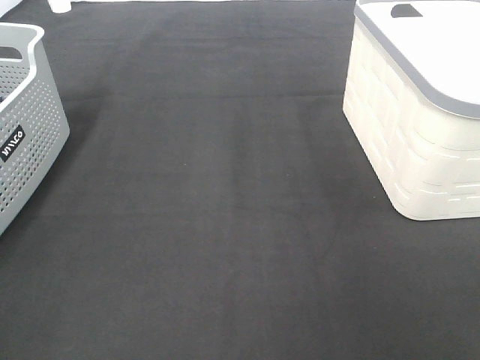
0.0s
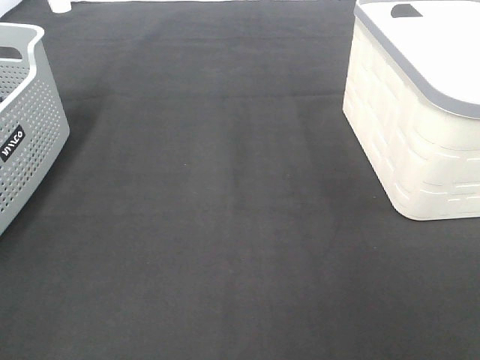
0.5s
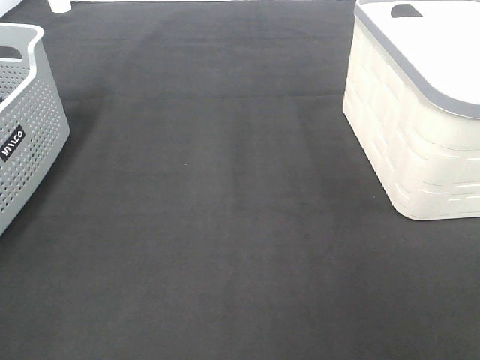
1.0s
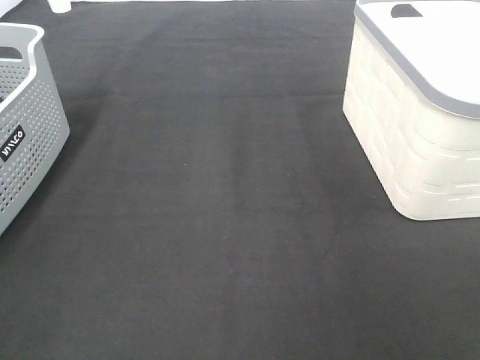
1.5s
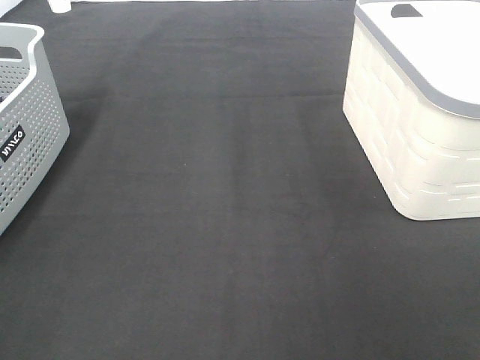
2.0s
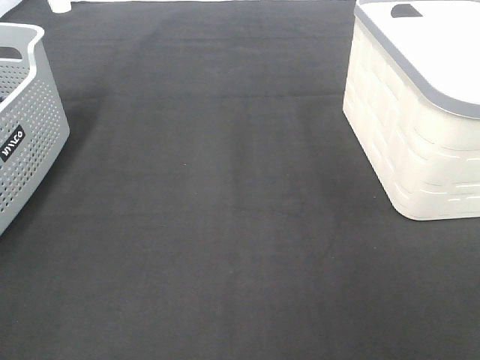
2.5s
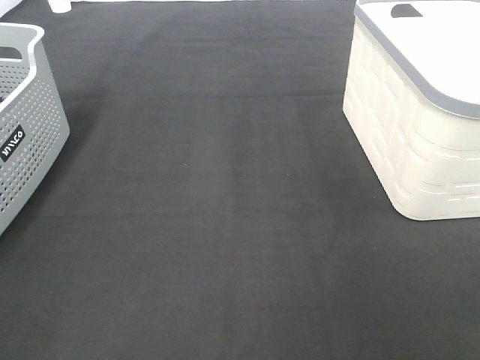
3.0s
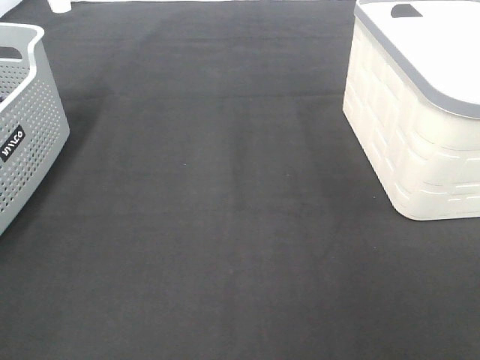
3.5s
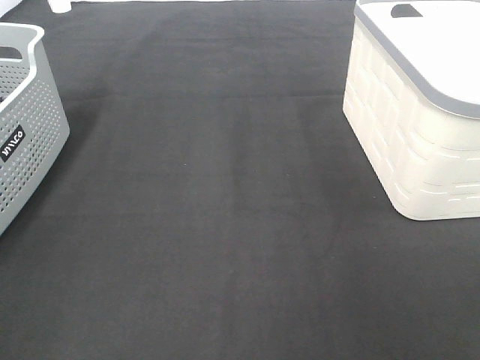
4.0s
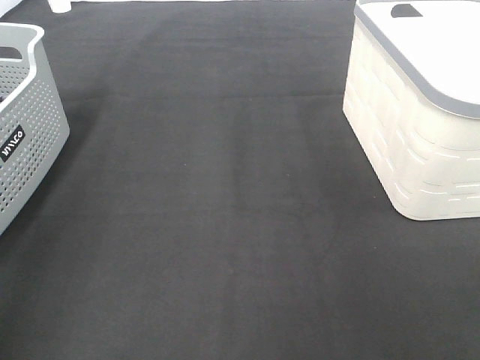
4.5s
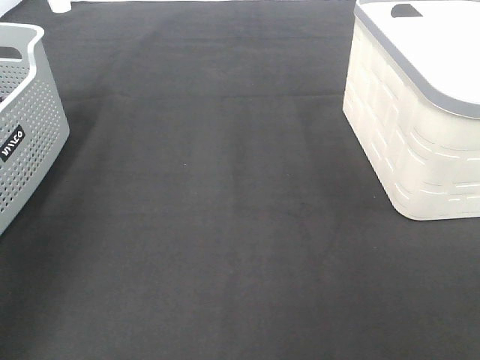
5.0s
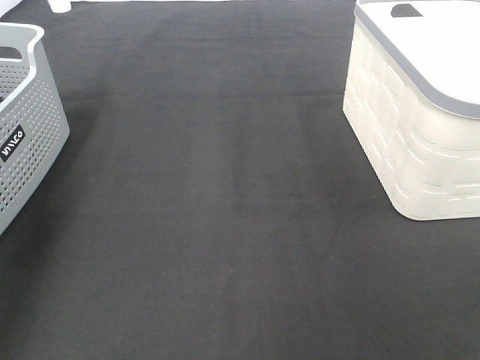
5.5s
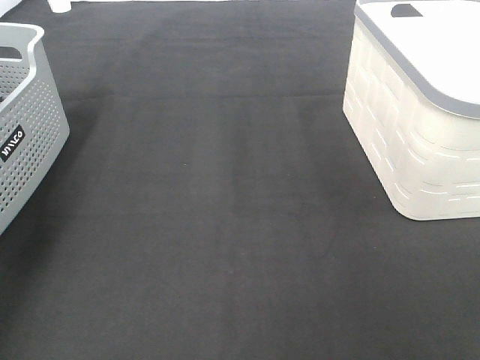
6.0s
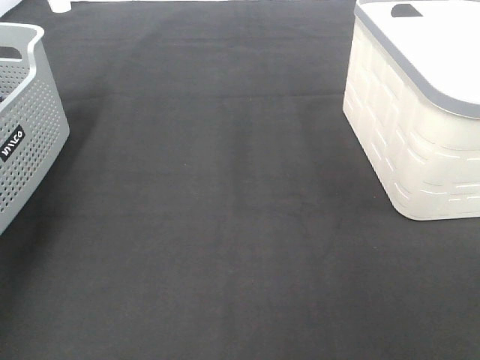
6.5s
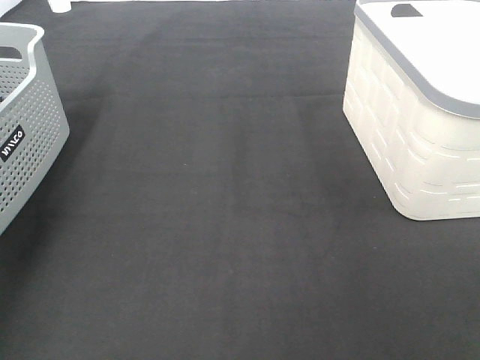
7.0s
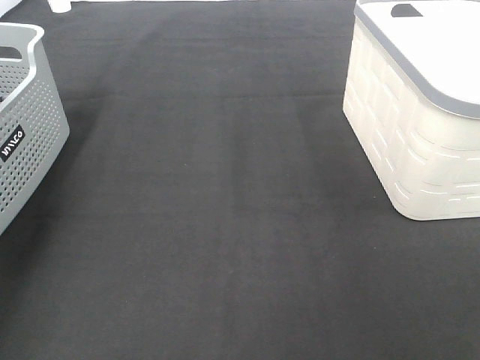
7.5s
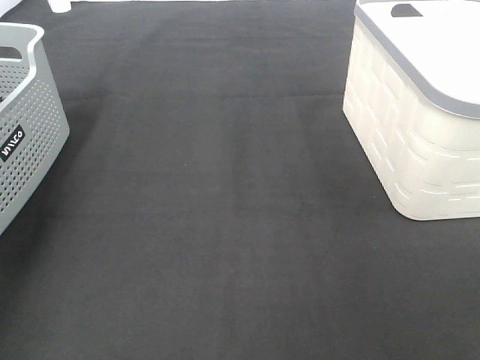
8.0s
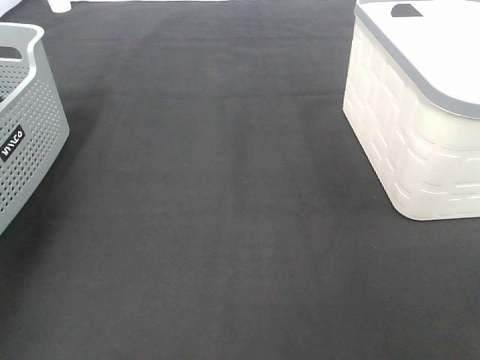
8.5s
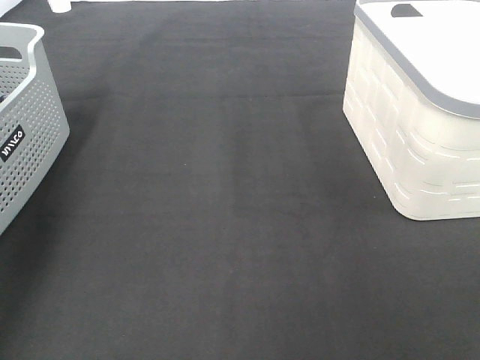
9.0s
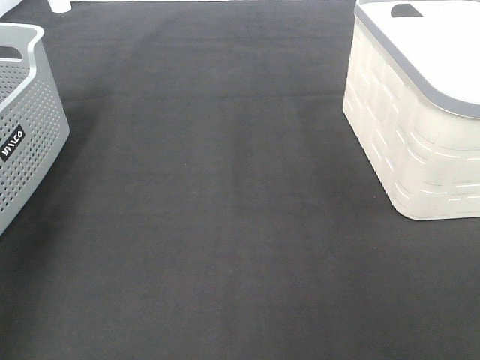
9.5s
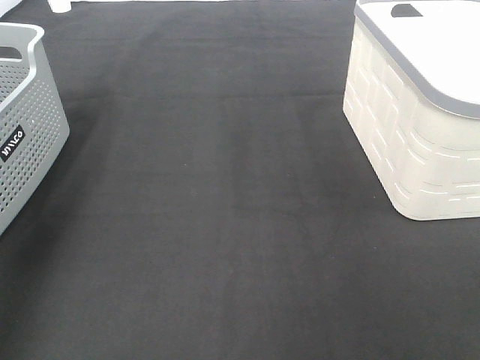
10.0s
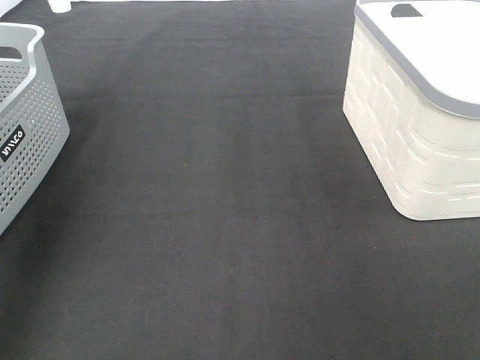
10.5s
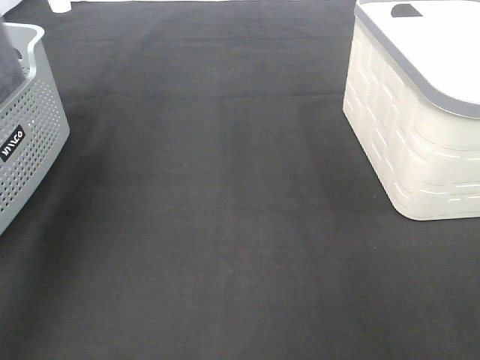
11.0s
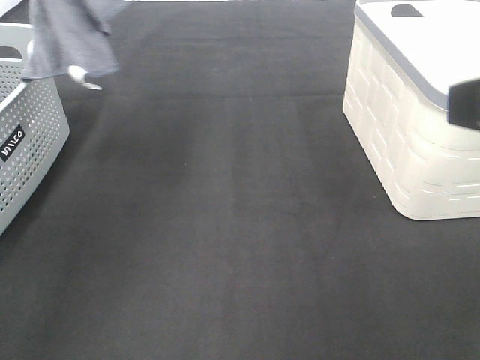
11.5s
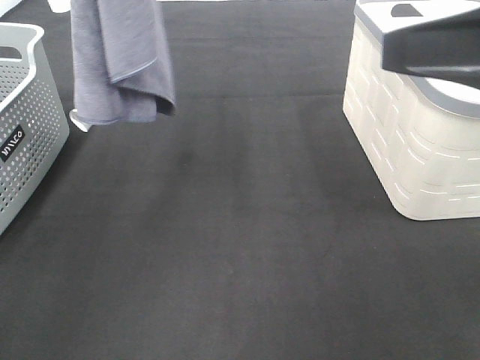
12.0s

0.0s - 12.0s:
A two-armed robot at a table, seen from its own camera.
Task of the whole recording: Remove the towel and place it.
0.0s - 2.0s: Both grippers stay put.
4.0s - 6.0s: The left gripper shifts approximately 35 cm forward.
10.0s - 12.0s: The left gripper goes approximately 20 cm to the right and upward. The right gripper heads forward, covering some 15 cm.

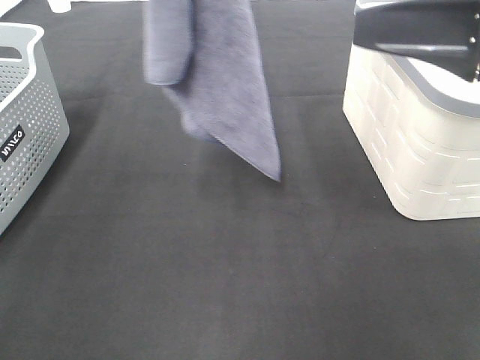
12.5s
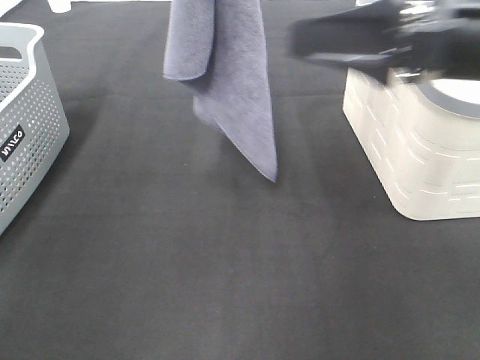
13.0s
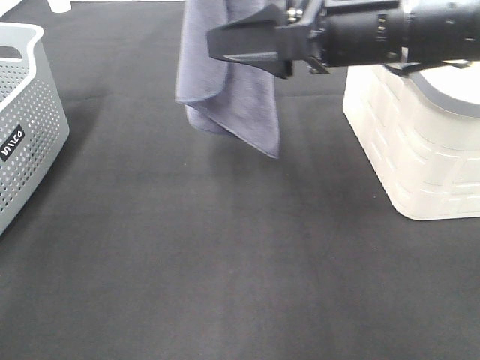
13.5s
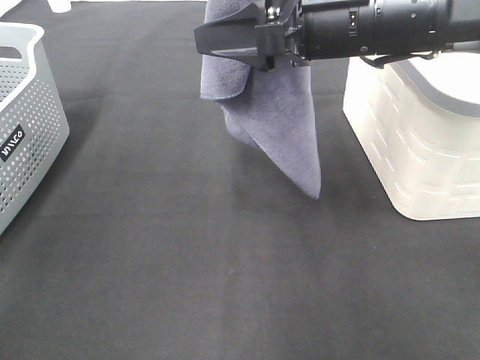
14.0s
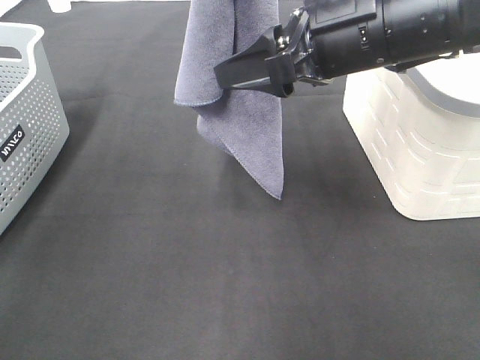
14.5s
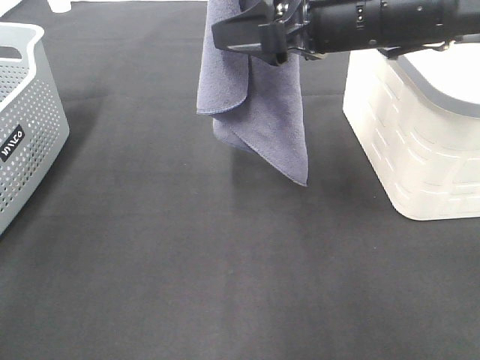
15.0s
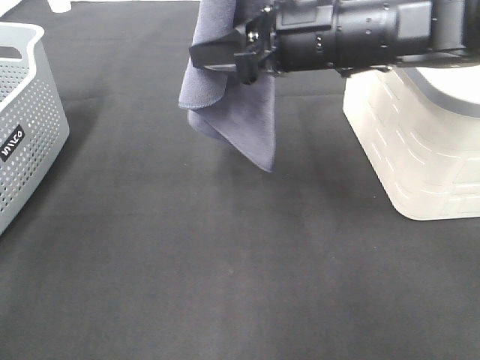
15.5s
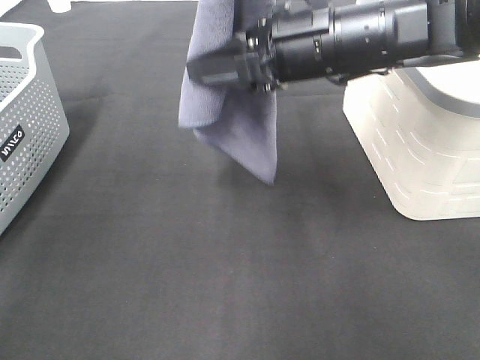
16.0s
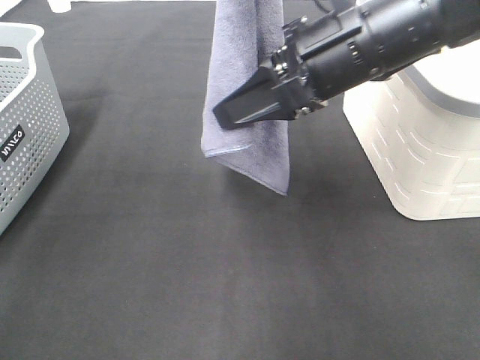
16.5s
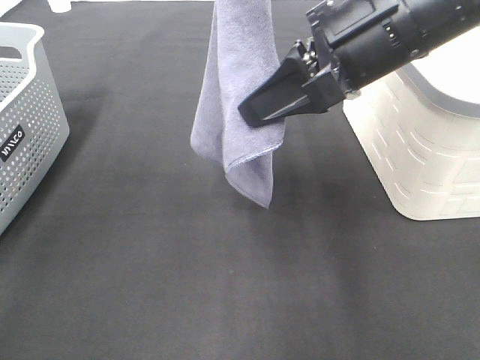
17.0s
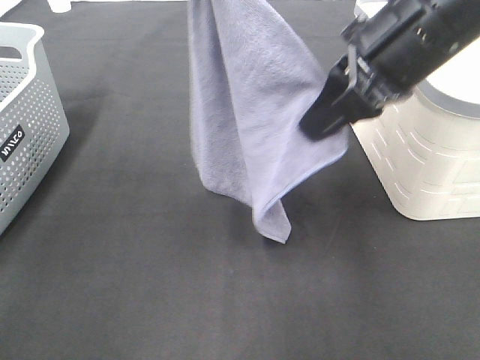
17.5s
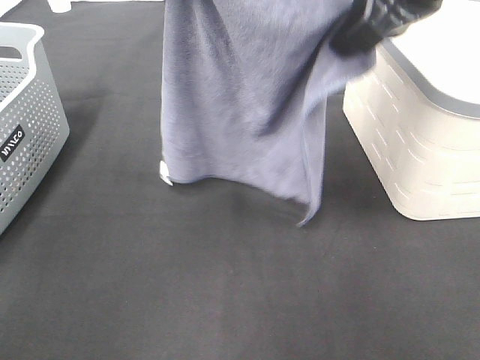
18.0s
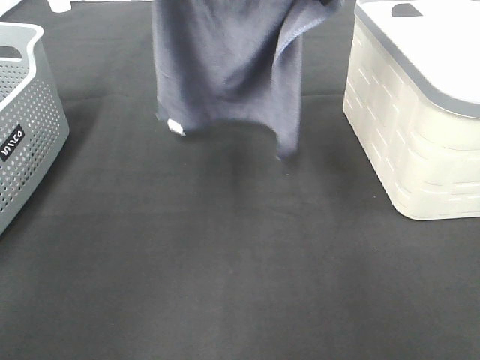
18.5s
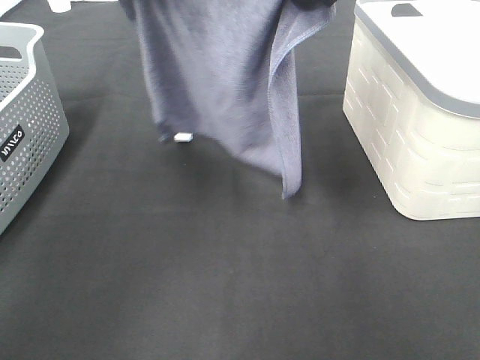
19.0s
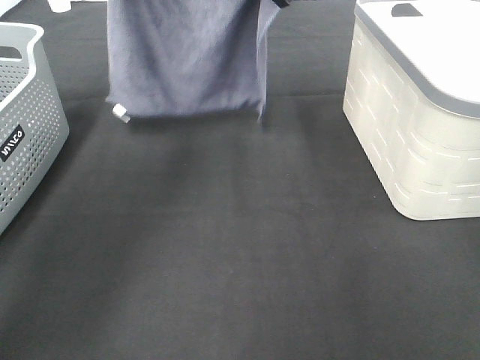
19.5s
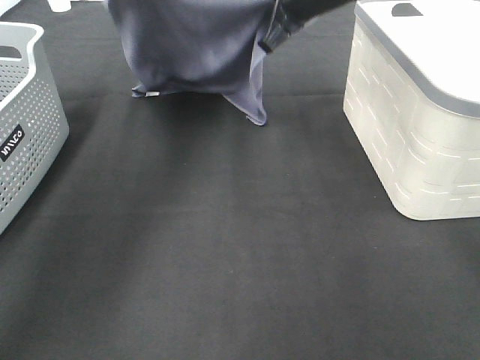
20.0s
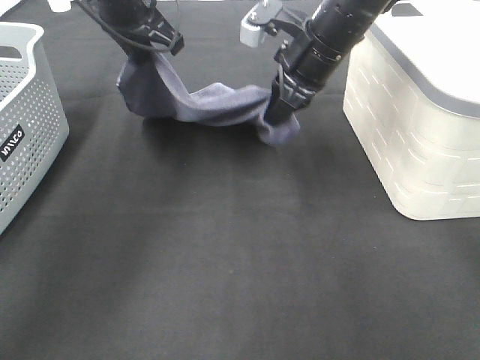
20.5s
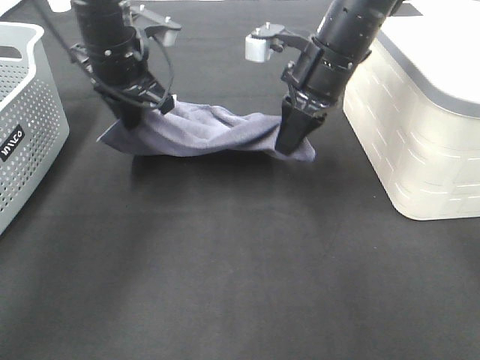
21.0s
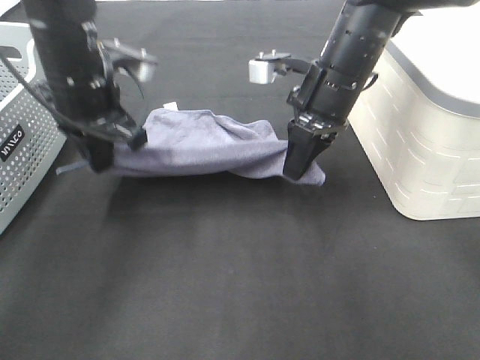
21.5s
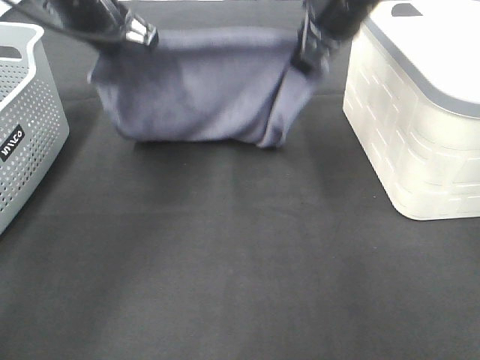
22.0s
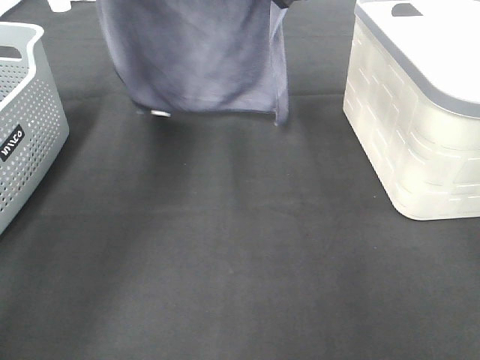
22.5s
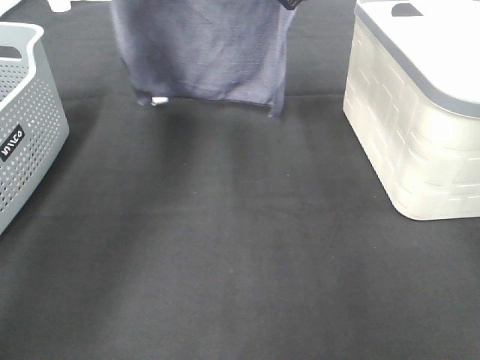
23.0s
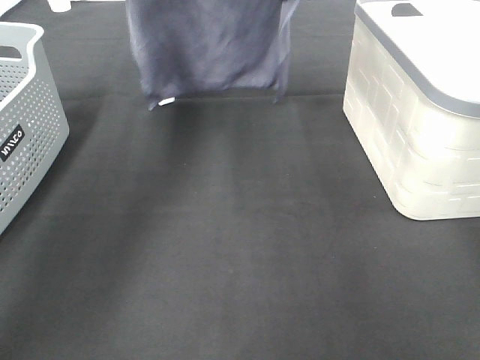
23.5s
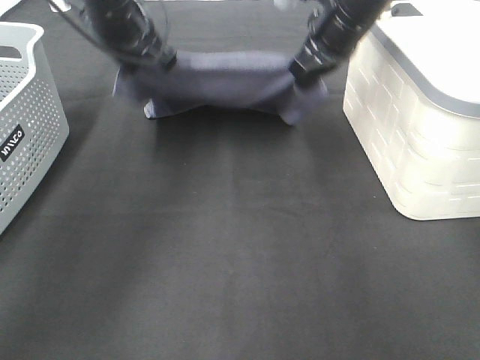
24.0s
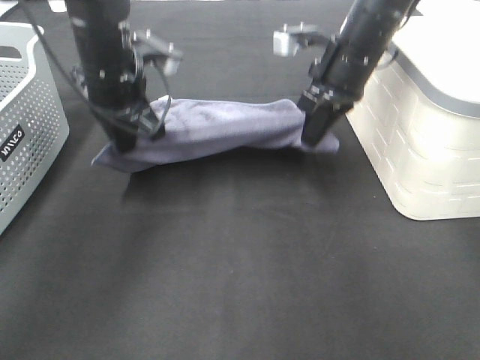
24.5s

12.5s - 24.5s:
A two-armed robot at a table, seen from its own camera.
Task of the whole recording: Remove the towel and place it.
Step, 12.5s - 15.0s: Right hand: grab a corner of the grey towel and straighten it.
Step, 15.5s - 20.5s: Right hand: spread the grey towel flat on the table.
Step, 15.5s - 21.0s: Left hand: spread the grey towel flat on the table.
12.5s - 14.5s: The right gripper shifts some 15 cm to the left and forward.
14.5s - 16.5s: The right gripper closes its fingers.
16.5s - 18.5s: The right gripper is displaced upward and forward by approximately 15 cm. The left gripper shifts roughly 10 cm forward and downward.
18.5s - 20.5s: Both grippers move downward, some 15 cm.
20.5s - 22.5s: The right gripper heads upward, covering some 10 cm; the left gripper is displaced upward by roughly 5 cm.
22.5s - 24.5s: Both grippers travel together downward, roughly 15 cm.

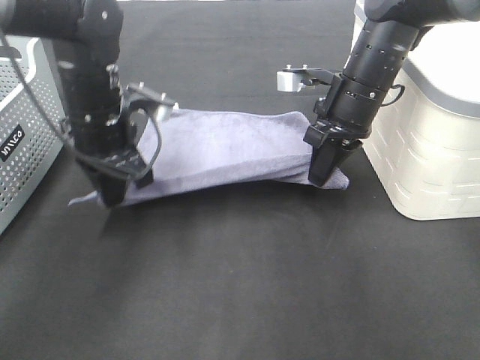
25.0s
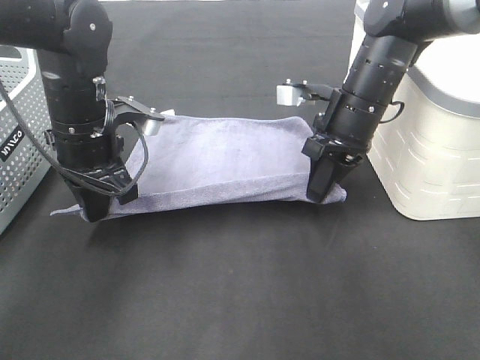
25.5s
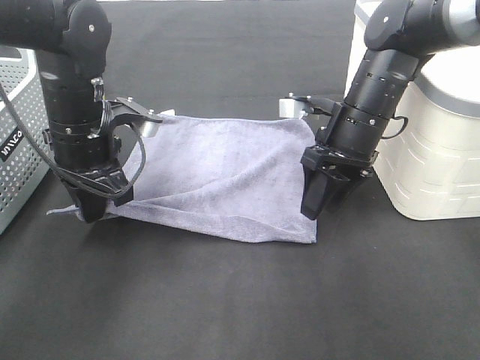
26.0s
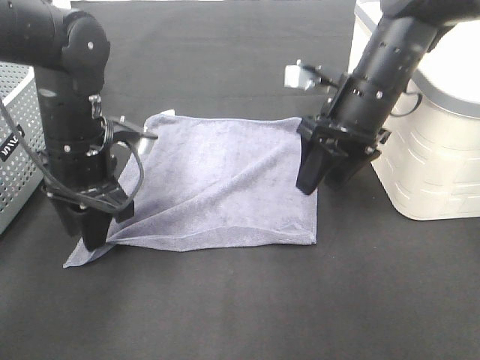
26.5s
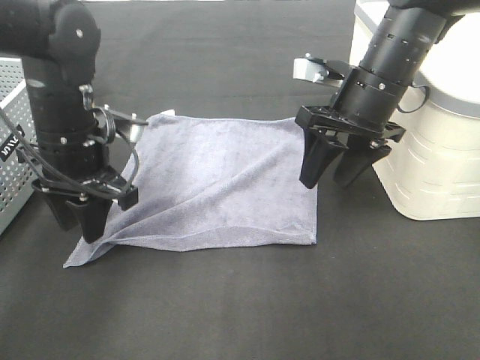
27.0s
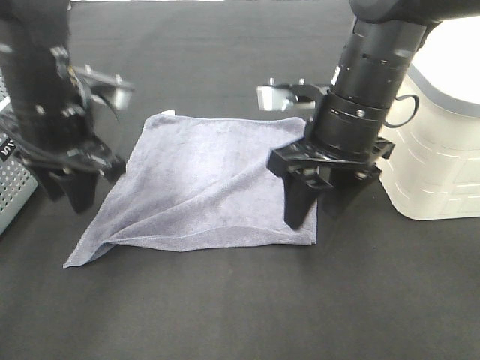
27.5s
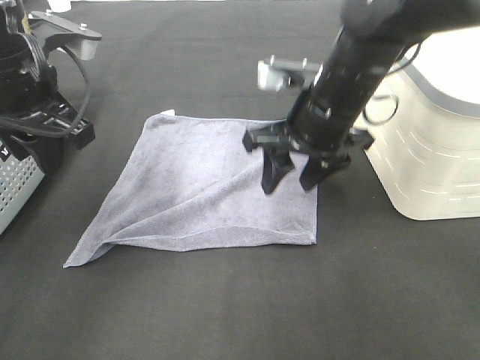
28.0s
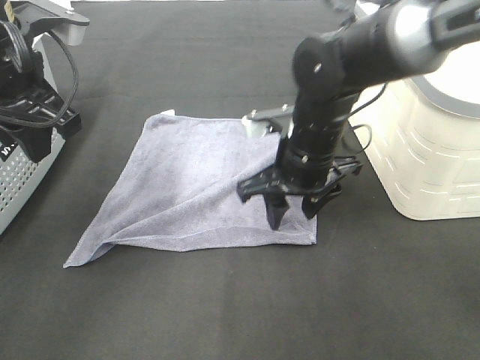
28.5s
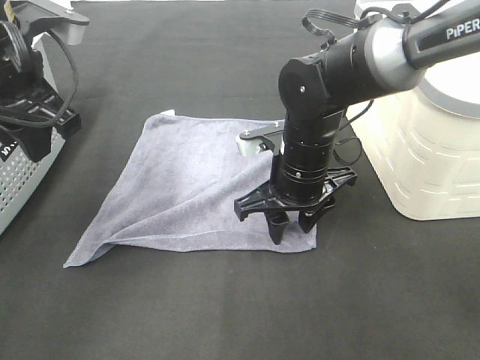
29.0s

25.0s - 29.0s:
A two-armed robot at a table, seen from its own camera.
Task of the whole recording: Remove the towel and place it.
Step, 25.0s - 28.5s: Right hand:adjust the gray towel.
25.0s - 27.0s: The right gripper opens up. Meanwhile the left gripper opens up.
27.0s - 29.0s: The left gripper heads upward, covering roughly 10 cm; the right gripper is displaced to the left and downward by about 10 cm.
